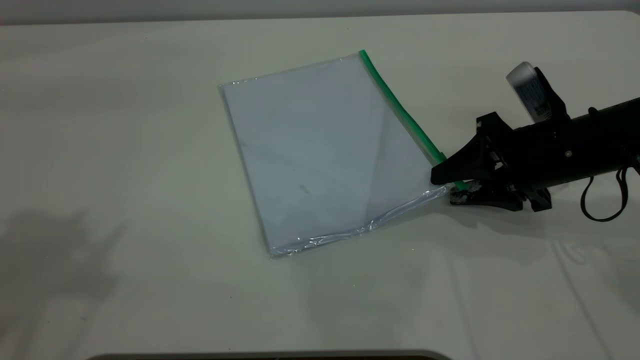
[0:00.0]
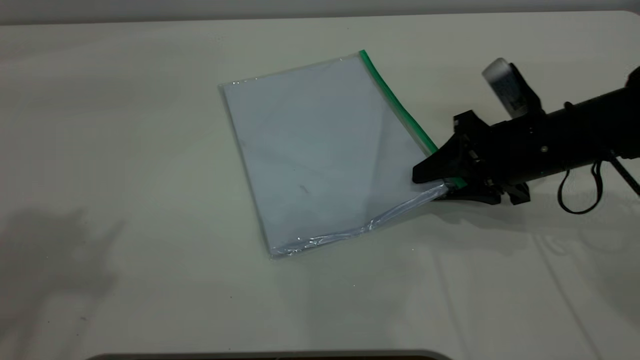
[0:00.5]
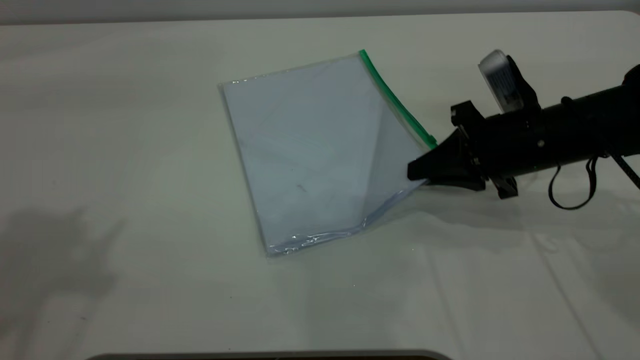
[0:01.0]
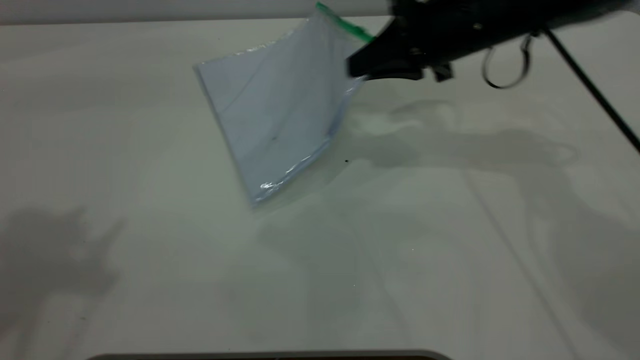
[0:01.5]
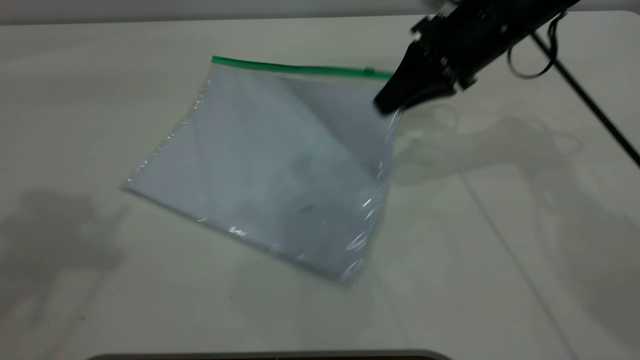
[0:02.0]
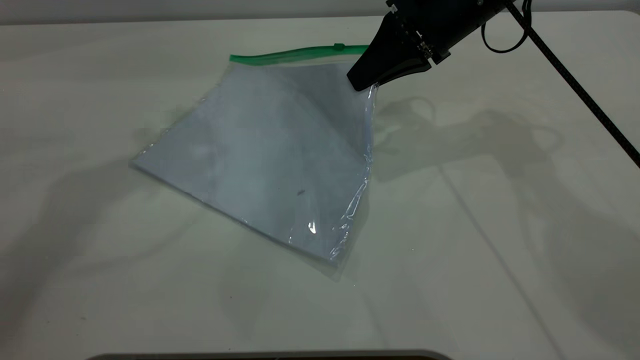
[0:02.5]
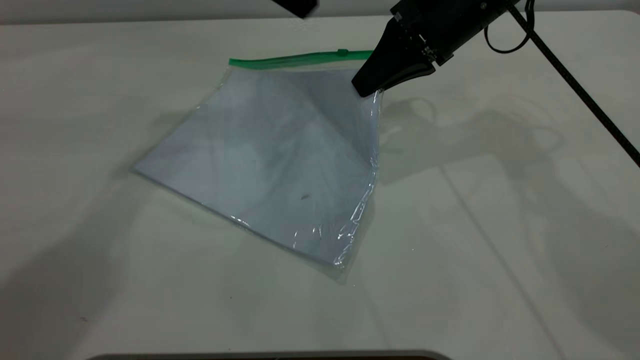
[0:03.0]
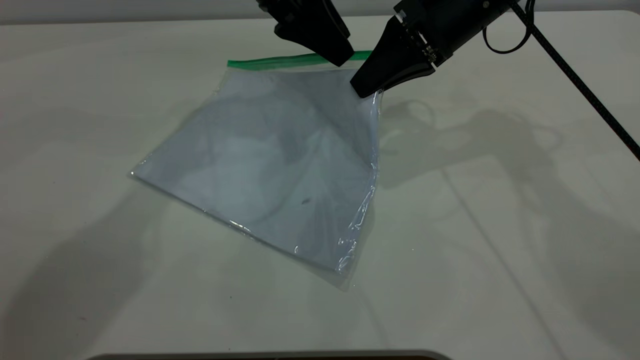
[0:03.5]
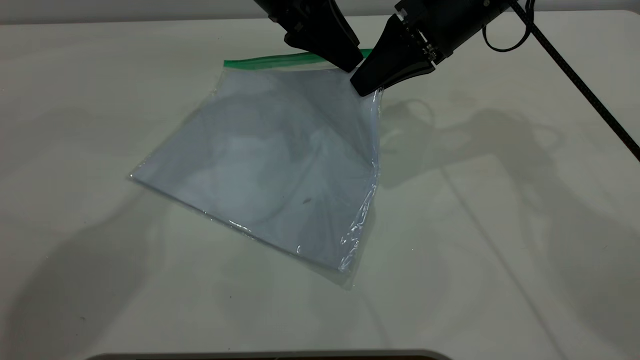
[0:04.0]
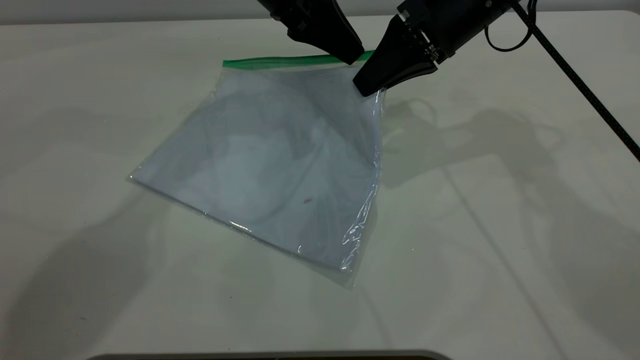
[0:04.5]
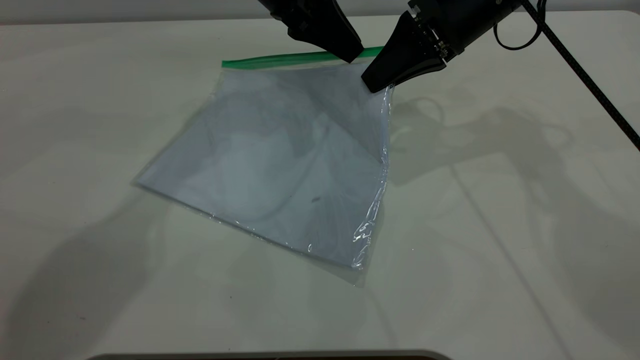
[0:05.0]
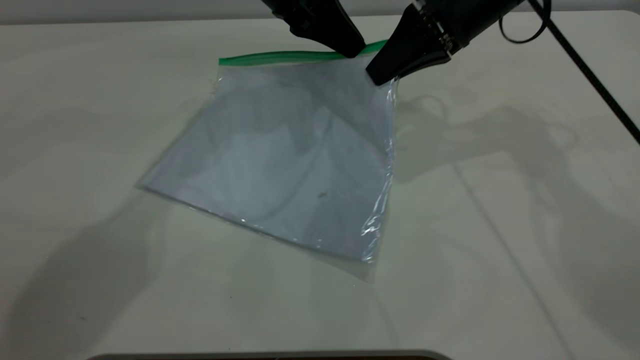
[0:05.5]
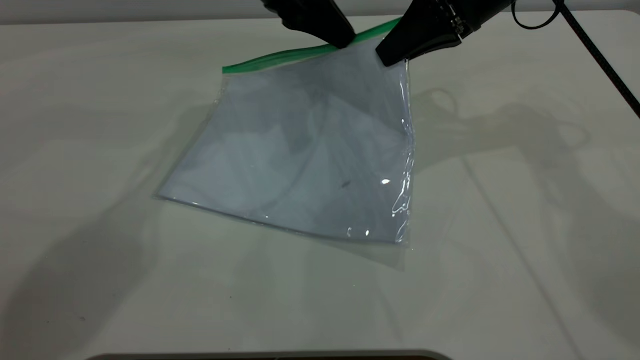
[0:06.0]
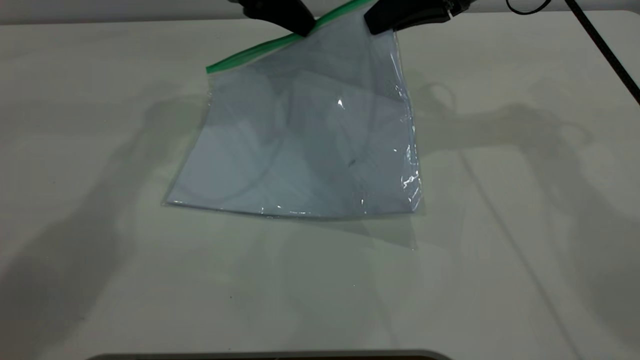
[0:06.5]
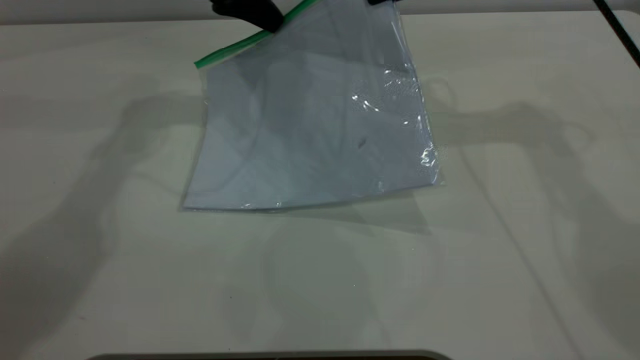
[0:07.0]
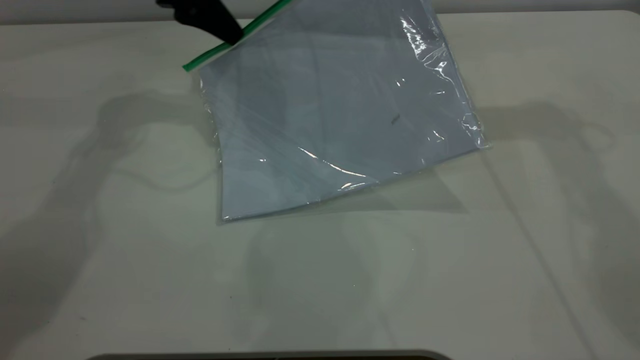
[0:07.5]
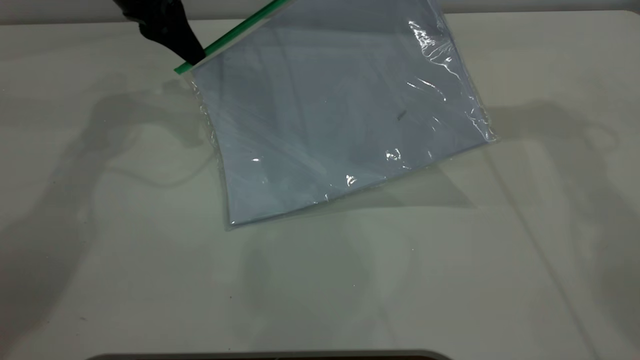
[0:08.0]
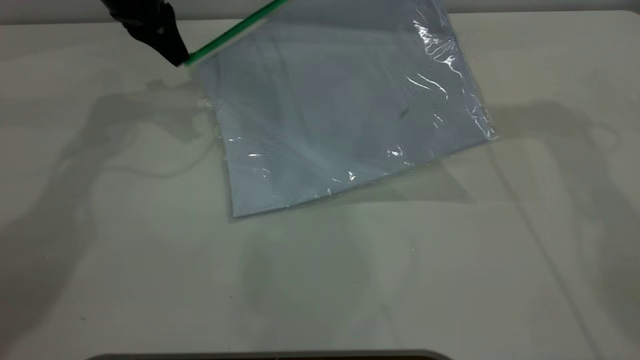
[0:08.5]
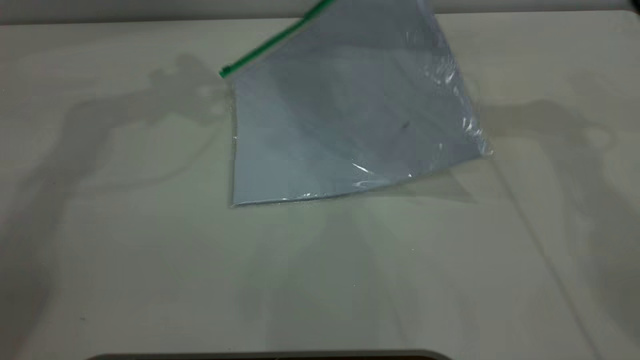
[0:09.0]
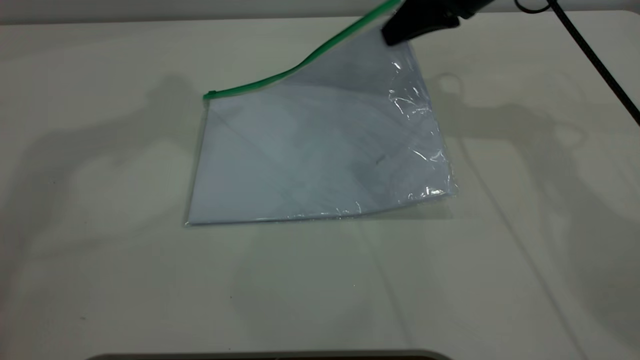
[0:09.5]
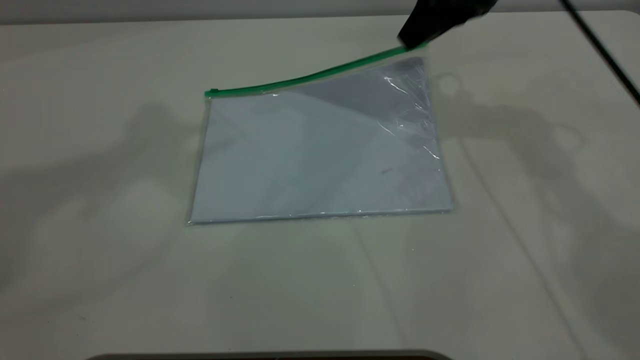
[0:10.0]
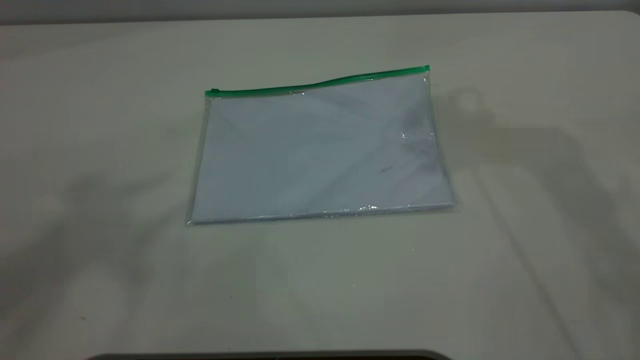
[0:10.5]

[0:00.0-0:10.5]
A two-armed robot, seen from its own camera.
Step, 0:01.5 to 0:08.0: Pulling up the zipper on the transparent plastic bag with the left gripper to close it.
Step, 0:09.0 to 0:10.0: Place the transparent plastic bag.
0:00.0 to 0:02.0: The right gripper goes roughly 15 cm forward, upward and to the left, and closes its fingers.
0:02.0 to 0:04.0: The left gripper heads to the right, forward and downward, covering some 35 cm.
0:04.0 to 0:06.5: The left gripper is displaced to the left by approximately 5 cm, and closes its fingers.
0:06.5 to 0:08.5: The right gripper shifts by about 5 cm; the left gripper is displaced to the left by approximately 10 cm.
0:08.5 to 0:10.5: The right gripper shifts some 15 cm upward and backward, and opens, while the left gripper goes approximately 50 cm upward and backward, and opens.
